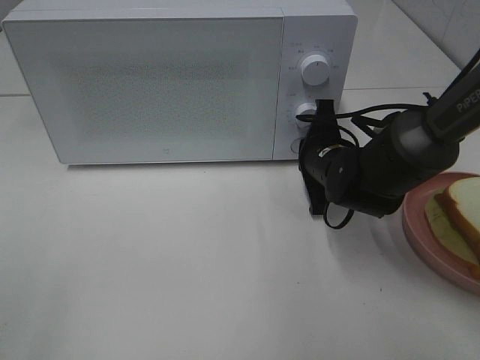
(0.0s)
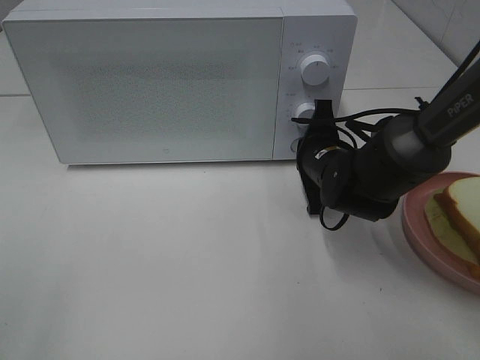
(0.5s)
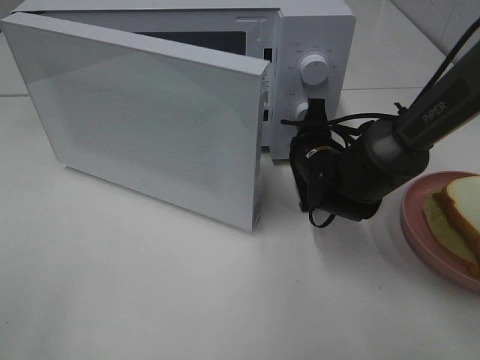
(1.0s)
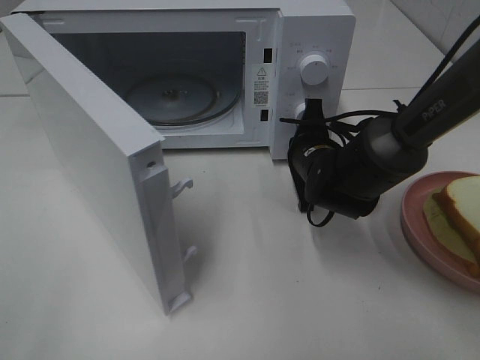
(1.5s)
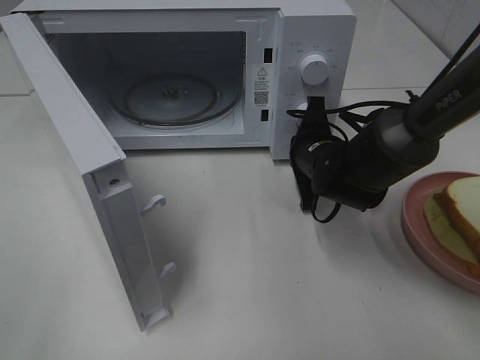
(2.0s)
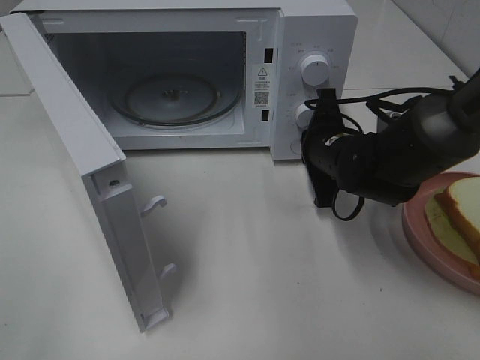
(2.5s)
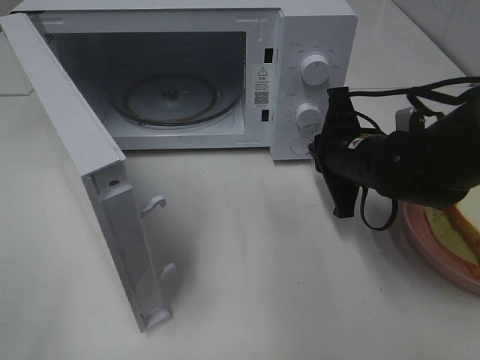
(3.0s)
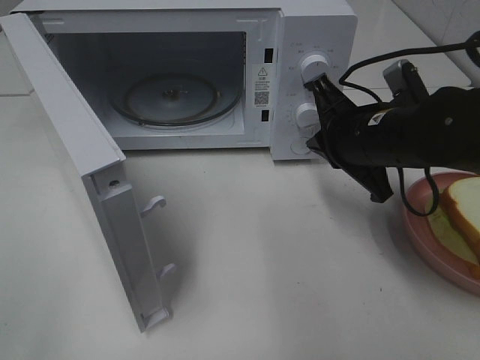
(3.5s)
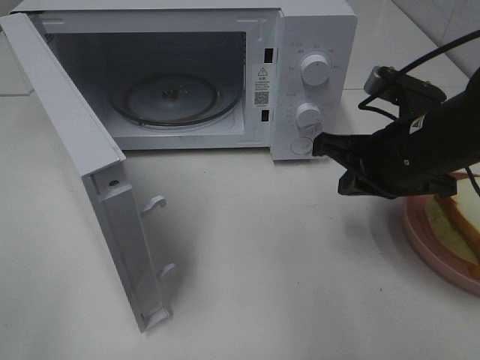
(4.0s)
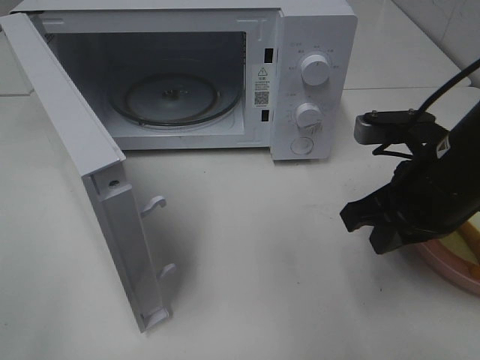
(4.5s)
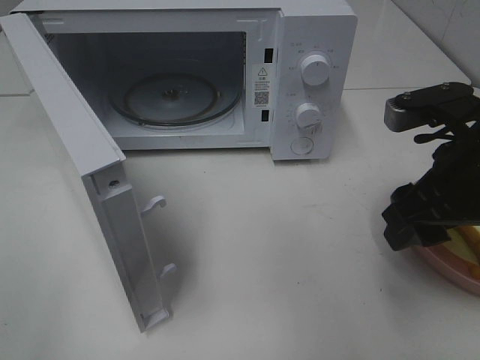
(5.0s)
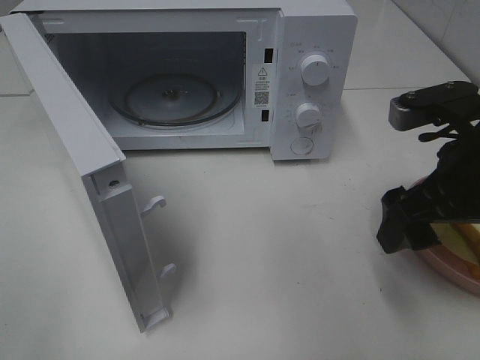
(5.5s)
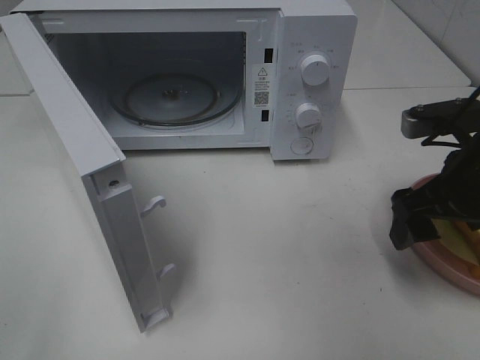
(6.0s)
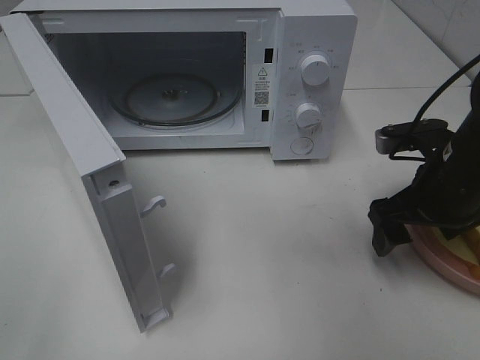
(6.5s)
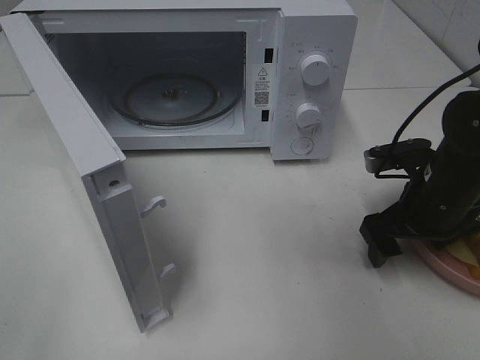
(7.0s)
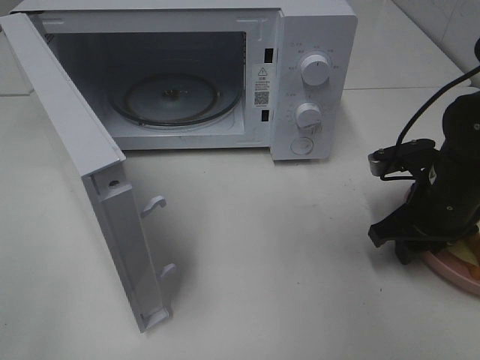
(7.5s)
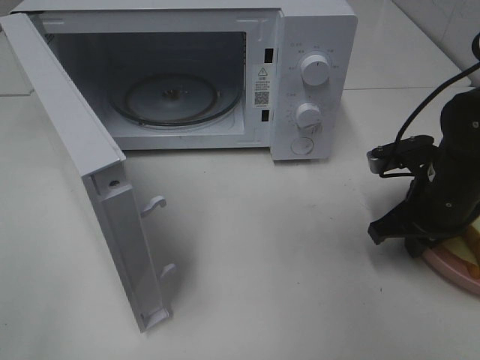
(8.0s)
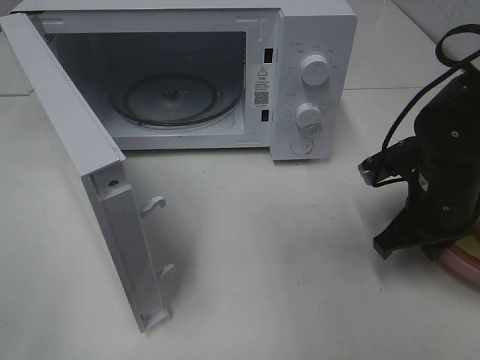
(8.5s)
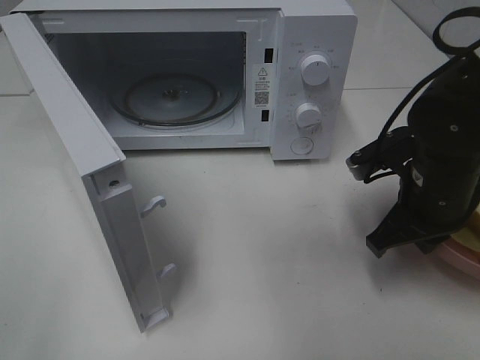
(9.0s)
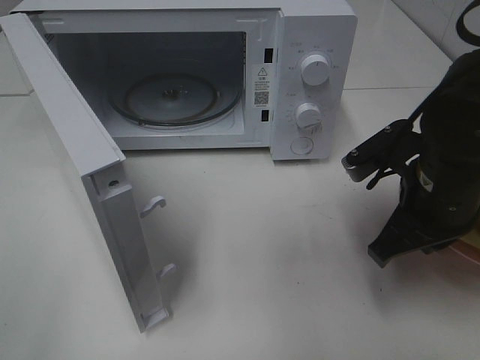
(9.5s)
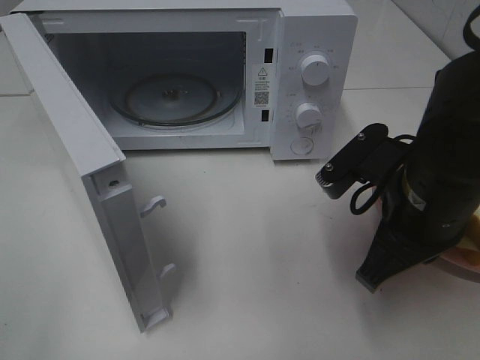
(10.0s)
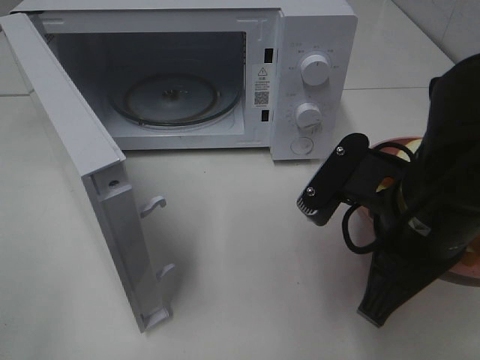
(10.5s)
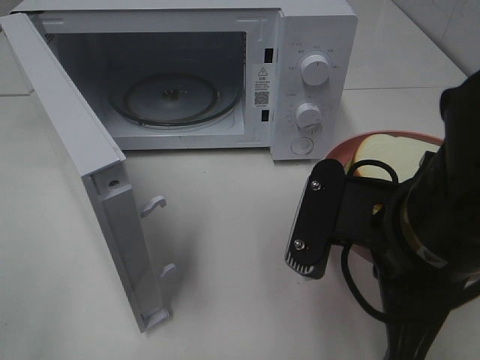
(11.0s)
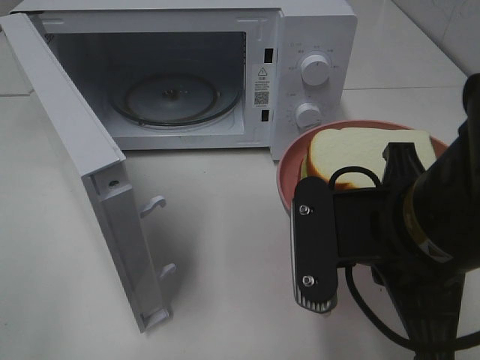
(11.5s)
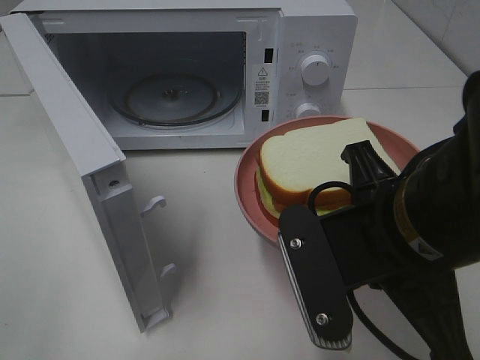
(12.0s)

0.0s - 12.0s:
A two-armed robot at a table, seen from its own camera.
Task of the whole recording: Heat Sandwich.
Step, 0.0s - 2.0s: Right hand: press the switch.
Step, 2.5s - 7.5s: Right hand: grab the plate with the sandwich.
2.0s - 4.0s: The right gripper heads backward, upward and to the right, covering some 15 cm.
4.0s - 6.0s: The right gripper travels to the right by approximately 5 cm, and opens its fingers.
6.0s - 8.0s: The right gripper travels downward by approximately 5 cm, and closes up.
8.0s - 10.0s: The right gripper travels to the left, backward and upward by roughly 15 cm.
10.0s - 12.0s: The right gripper travels backward by about 5 cm.

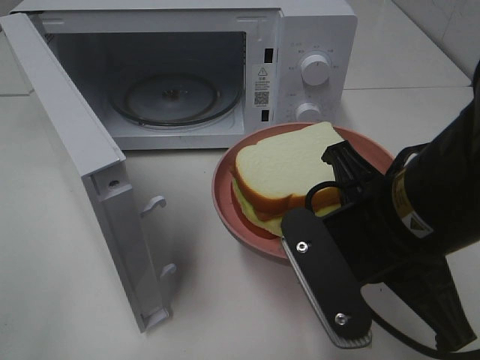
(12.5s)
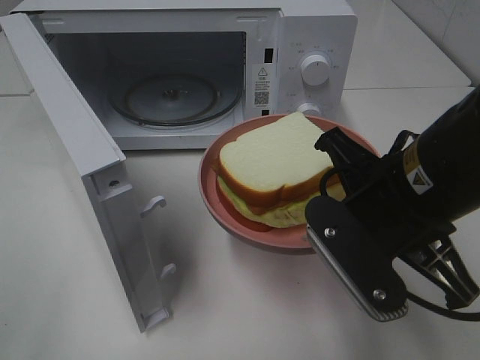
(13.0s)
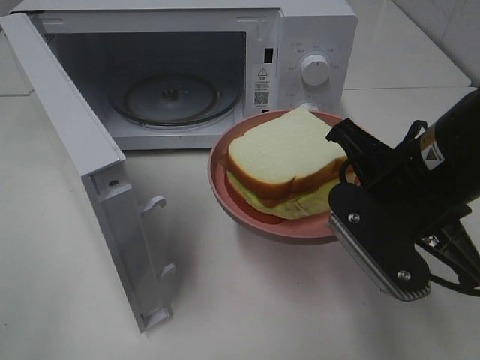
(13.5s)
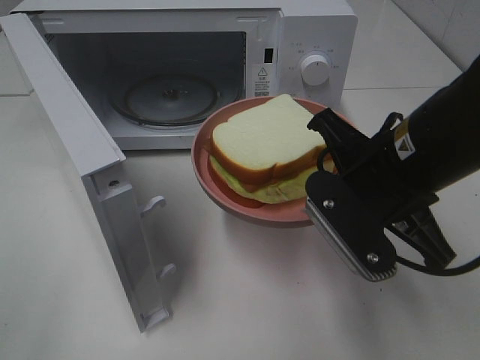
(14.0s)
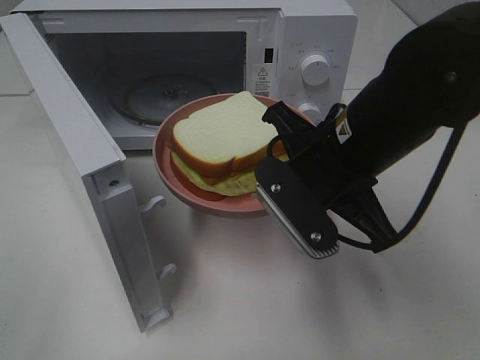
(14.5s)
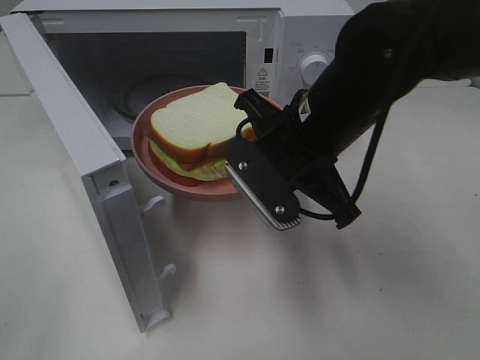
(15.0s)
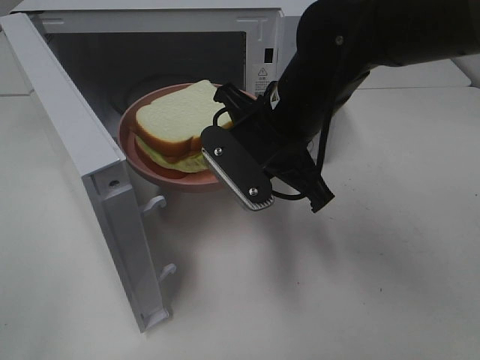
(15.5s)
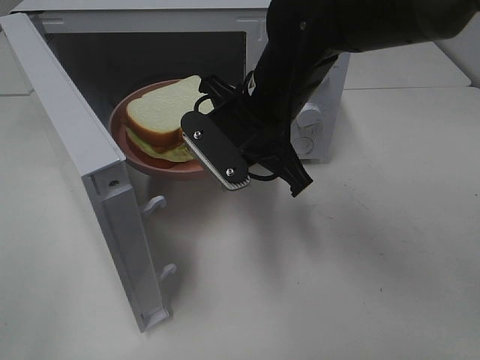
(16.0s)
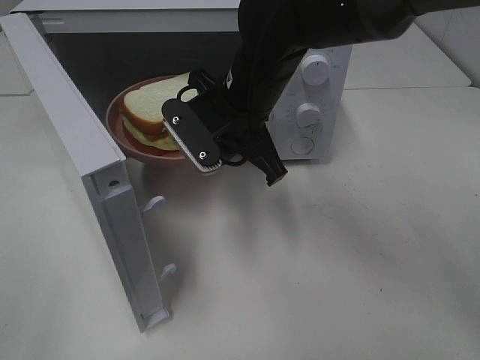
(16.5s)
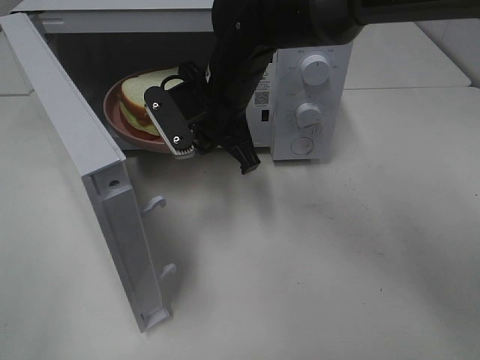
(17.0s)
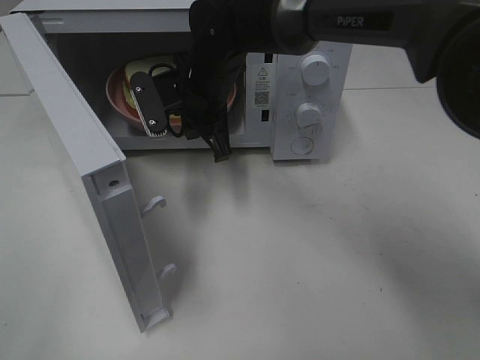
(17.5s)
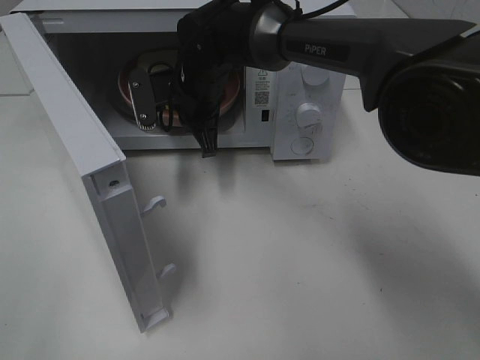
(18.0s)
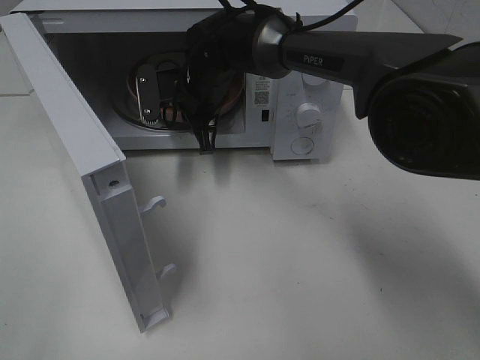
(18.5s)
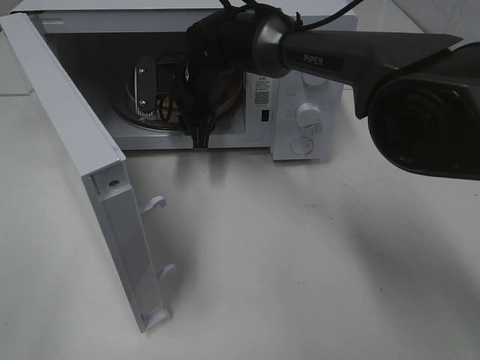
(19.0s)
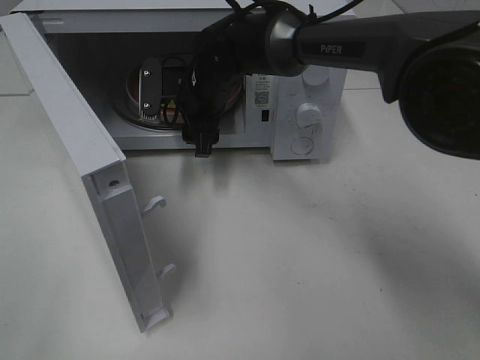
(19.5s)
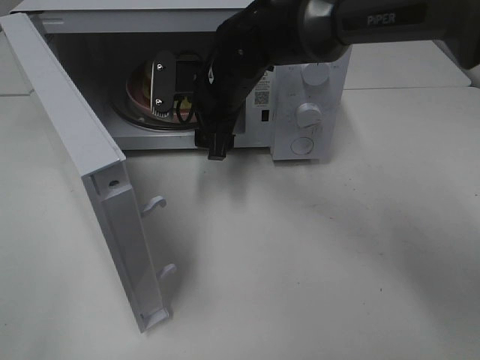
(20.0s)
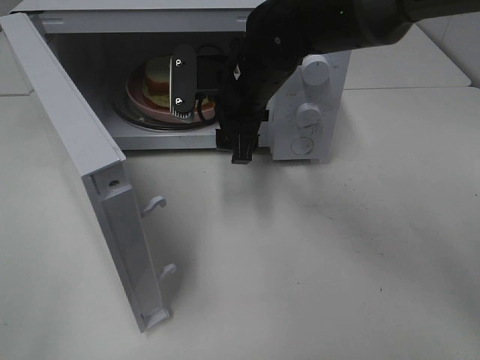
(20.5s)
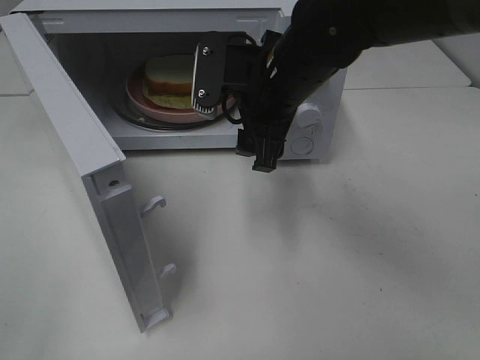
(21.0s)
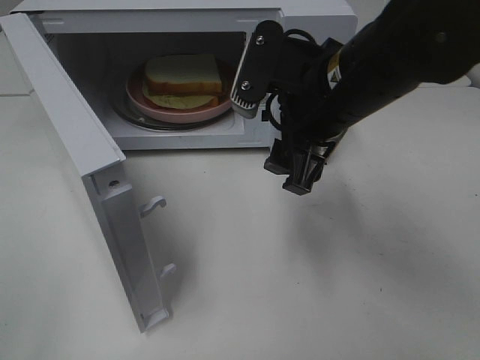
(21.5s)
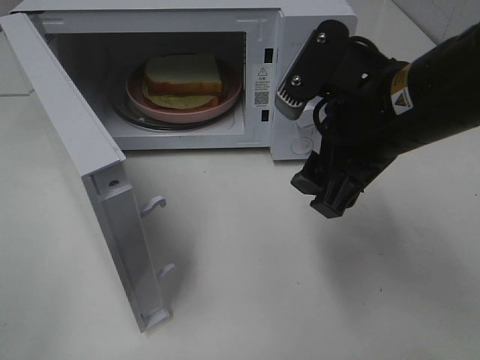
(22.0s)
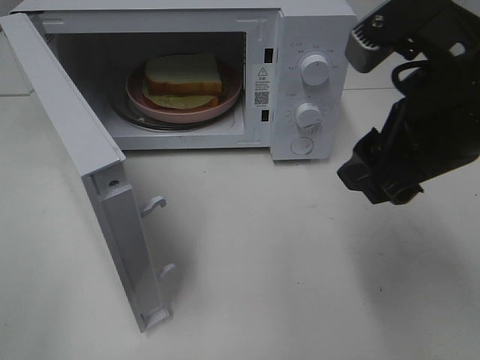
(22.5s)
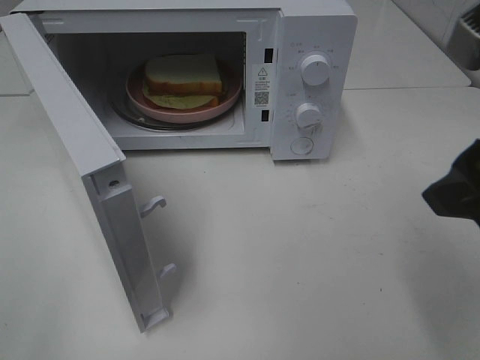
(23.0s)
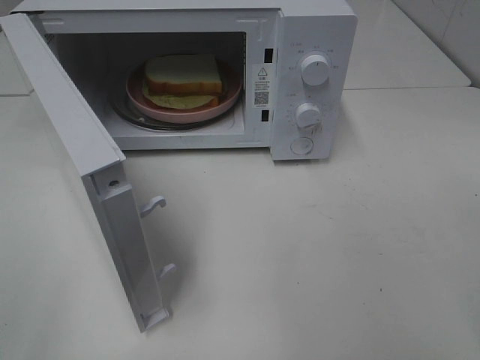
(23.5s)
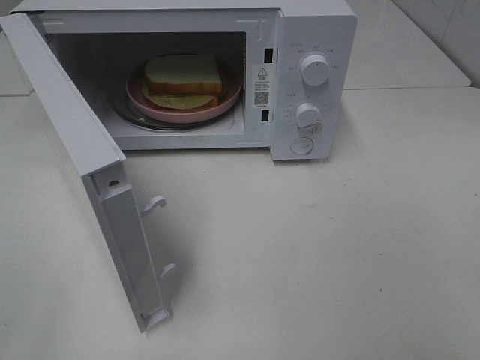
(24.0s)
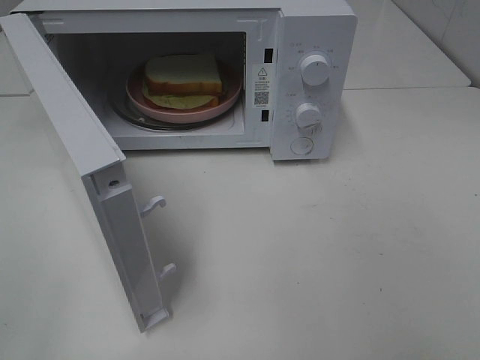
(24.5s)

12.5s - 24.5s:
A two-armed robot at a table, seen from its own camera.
Task of the whole recording: Heat Sandwich.
Step, 12.5s - 19.5s: Right hand: place the plate in the microwave.
12.5s - 14.5s: The right gripper moves forward, about 10 cm.
14.5s - 16.5s: The right gripper heads forward and to the left, covering roughly 15 cm.
16.5s - 18.5s: The right gripper goes some 10 cm forward and to the left.
18.5s - 20.5s: The right gripper is displaced backward, to the right and upward by about 10 cm, and opens.
20.5s - 22.5s: The right gripper goes about 25 cm backward, to the right and upward.
22.5s - 24.5s: The right gripper travels backward and to the right by about 25 cm.

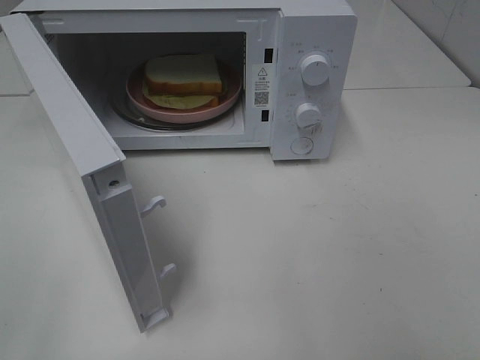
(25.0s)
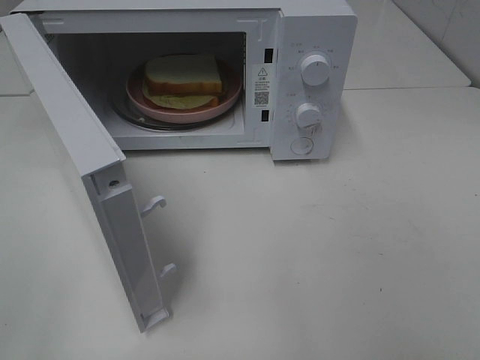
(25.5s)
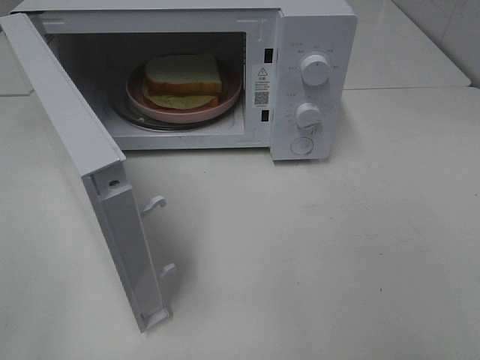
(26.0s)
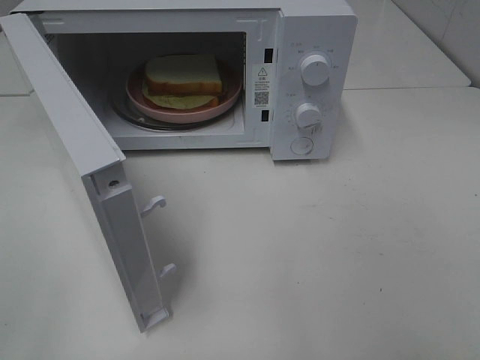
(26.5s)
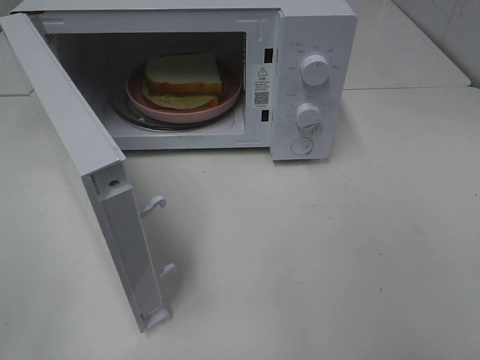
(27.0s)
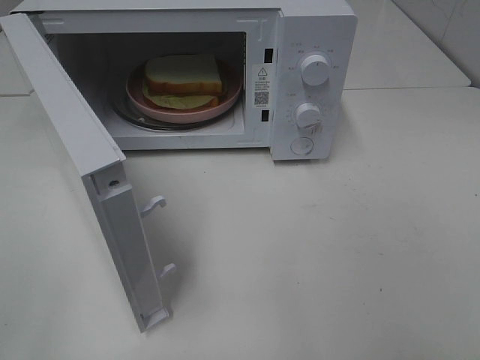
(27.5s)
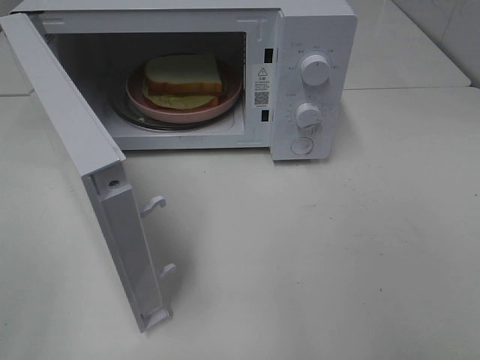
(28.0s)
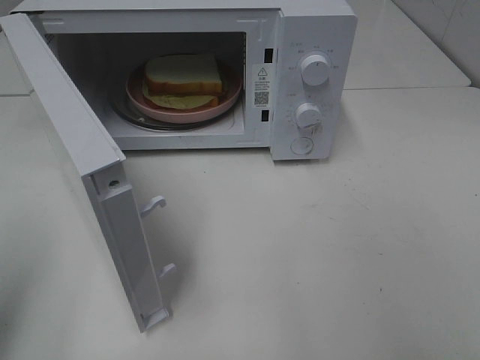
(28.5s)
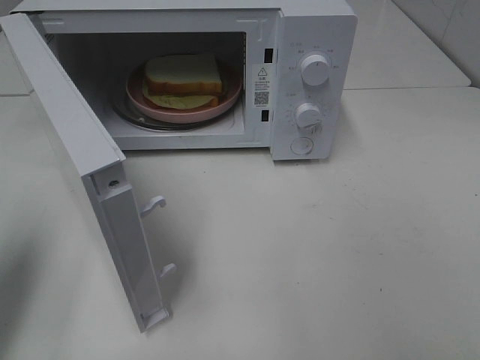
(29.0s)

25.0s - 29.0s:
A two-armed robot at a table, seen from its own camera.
Task of the whole recording: Heat Sandwich.
27.0s - 29.0s: The left gripper is displaced forward by roughly 20 cm, and closes up.
